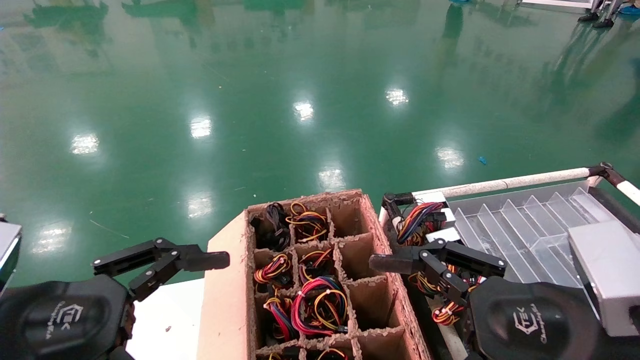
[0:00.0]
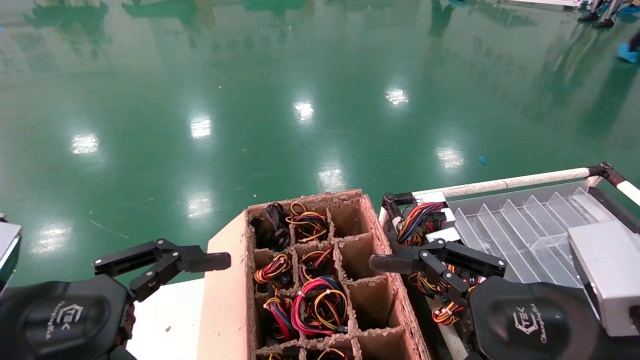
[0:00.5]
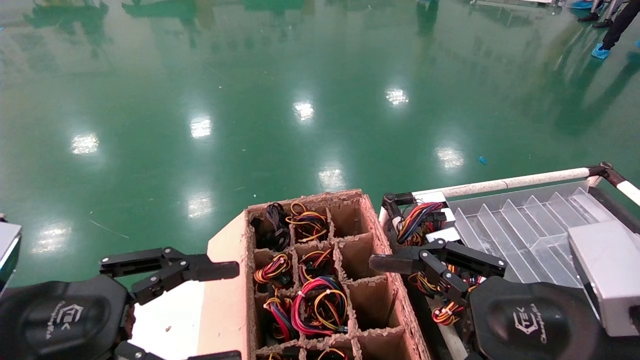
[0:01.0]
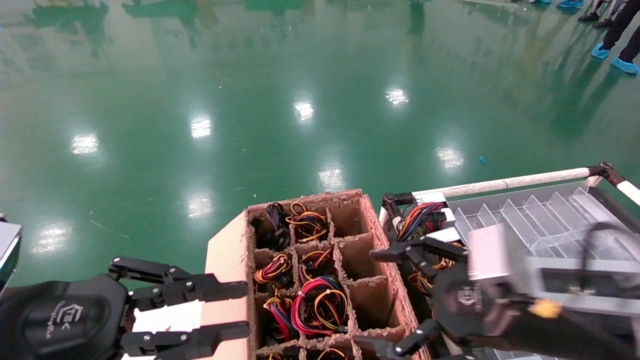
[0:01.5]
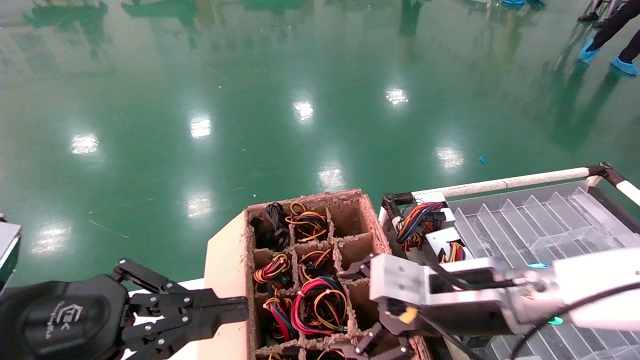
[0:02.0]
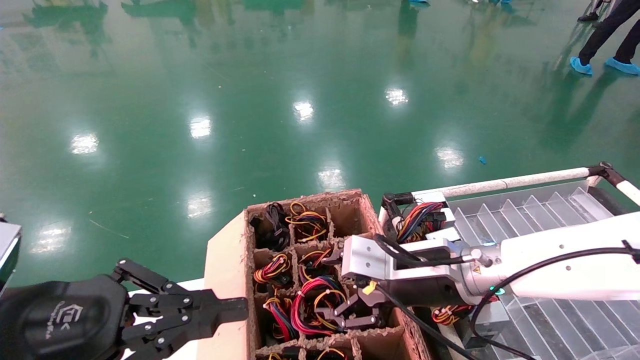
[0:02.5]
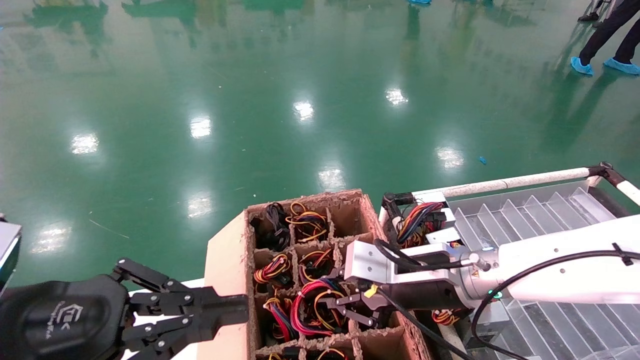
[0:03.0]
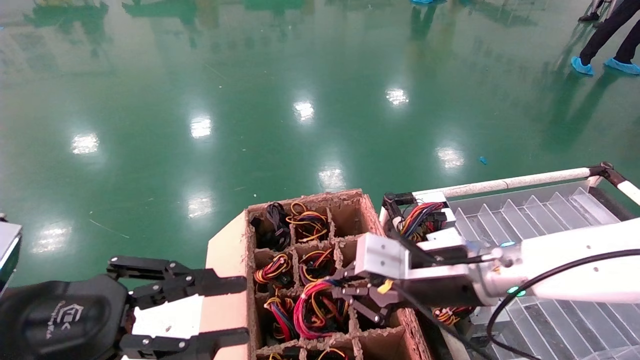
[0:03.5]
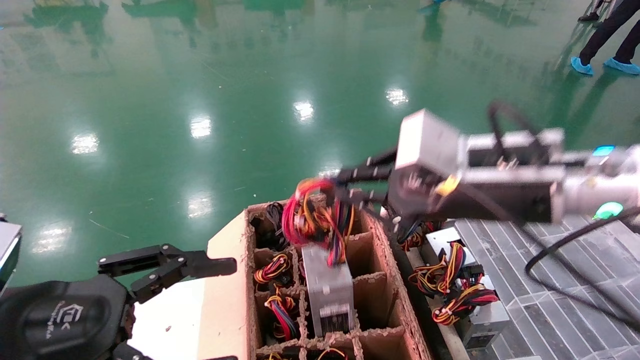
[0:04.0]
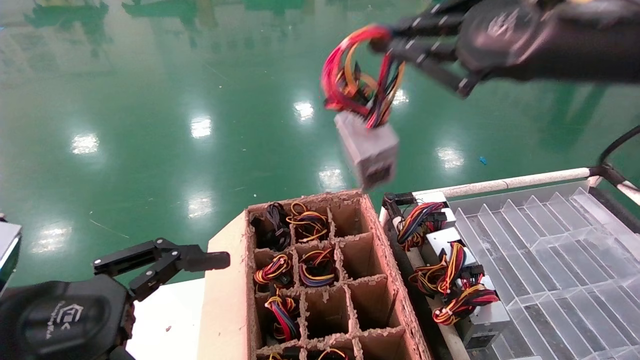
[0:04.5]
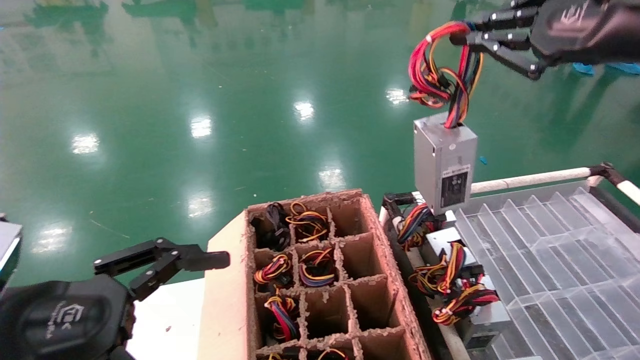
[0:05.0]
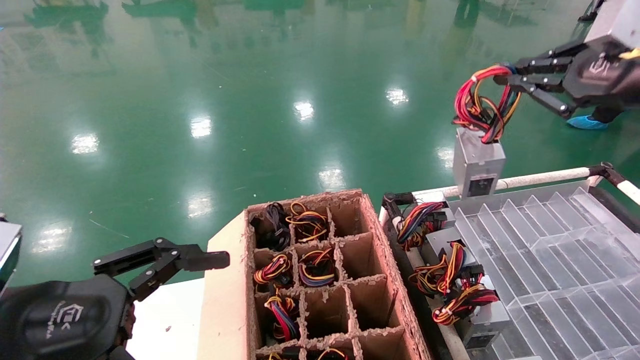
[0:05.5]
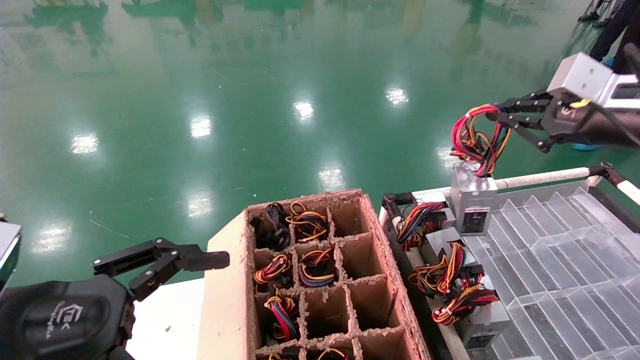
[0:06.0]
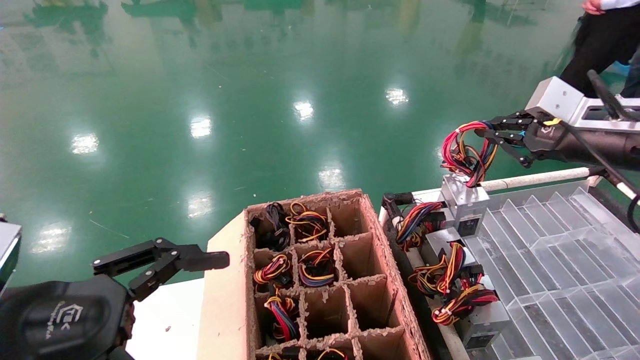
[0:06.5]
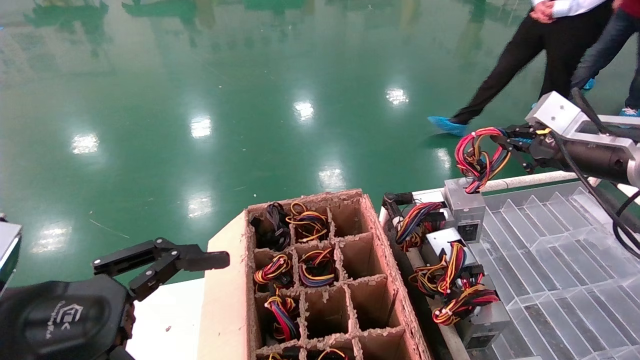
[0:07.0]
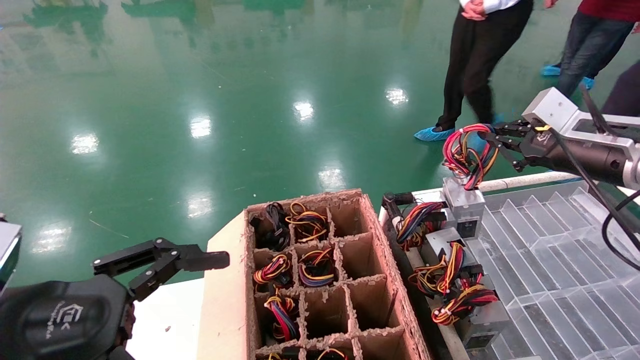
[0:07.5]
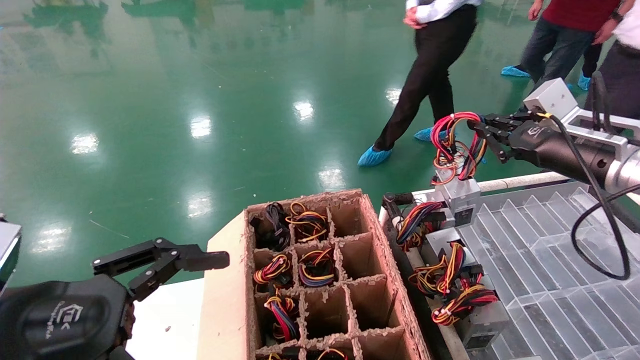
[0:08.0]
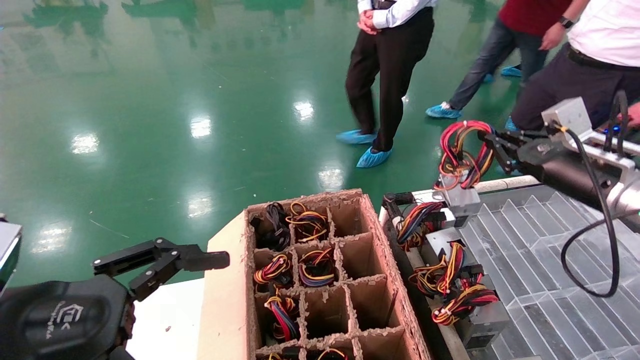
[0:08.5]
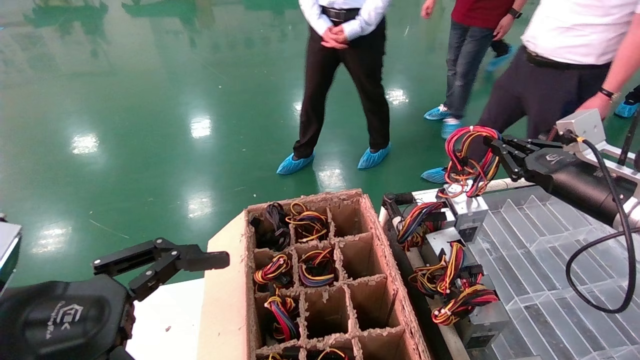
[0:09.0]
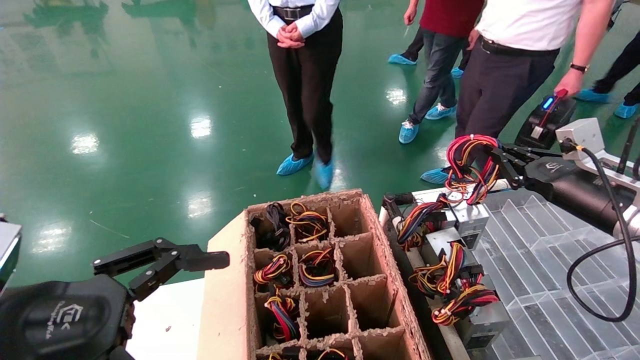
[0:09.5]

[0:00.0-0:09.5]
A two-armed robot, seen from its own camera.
Step, 0:02.0 to 0:03.5: Grab and lift the power supply from the large box.
0:00.0 to 0:02.0: The right gripper heads forward and to the left, covering some 15 cm. Meanwhile the left gripper closes its fingers.
0:02.0 to 0:04.0: The right gripper goes some 15 cm upward, and closes. The left gripper opens its fingers.
0:04.0 to 0:05.5: The left gripper opens up. Meanwhile the right gripper moves to the right and upward, roughly 20 cm.
0:05.5 to 0:07.5: The right gripper shifts roughly 15 cm downward and forward.
0:07.5 to 0:09.5: The right gripper is displaced downward by some 10 cm.

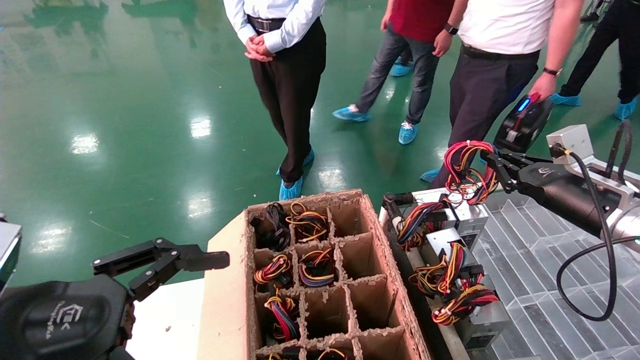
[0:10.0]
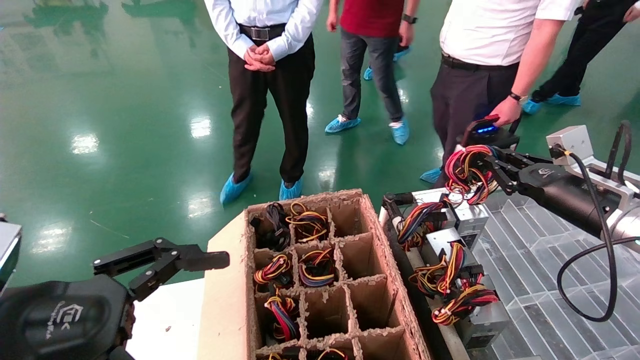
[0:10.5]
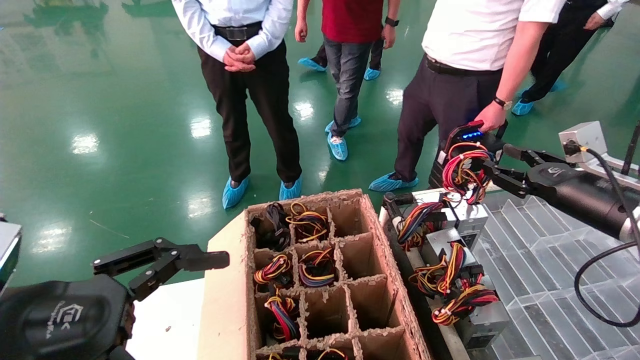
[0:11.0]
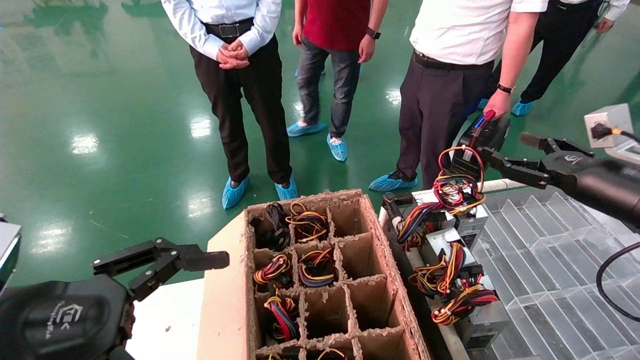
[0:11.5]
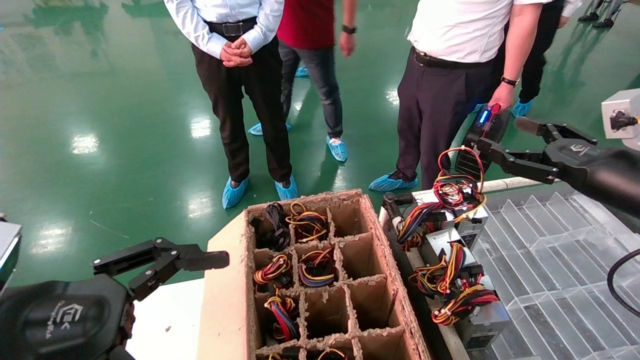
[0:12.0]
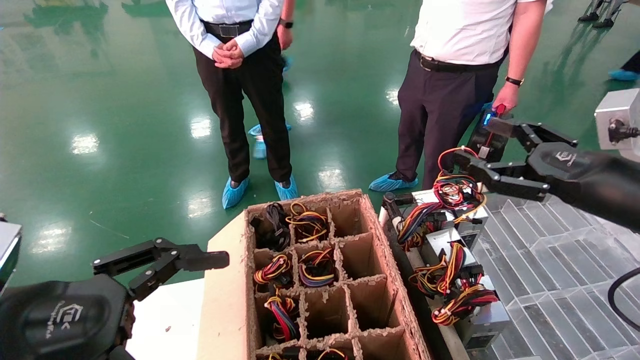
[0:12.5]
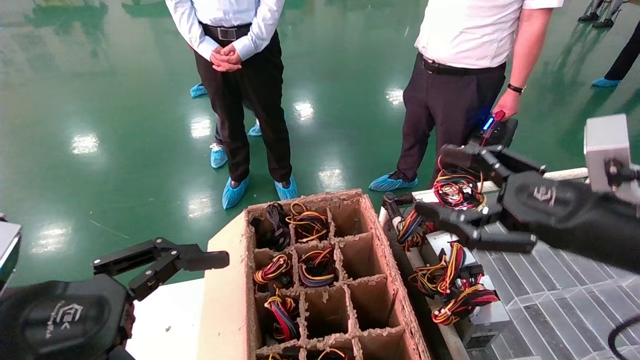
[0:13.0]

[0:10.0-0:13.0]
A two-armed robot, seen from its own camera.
0:10.0 to 0:11.5: The right gripper shifts by some 5 cm, and opens up.
0:11.5 to 0:13.0: The right gripper is displaced backward and to the left by about 15 cm.
